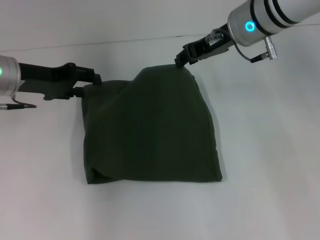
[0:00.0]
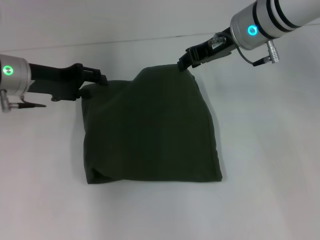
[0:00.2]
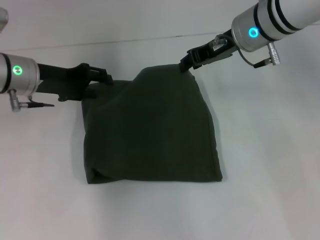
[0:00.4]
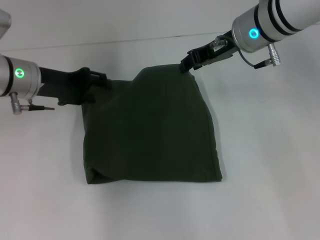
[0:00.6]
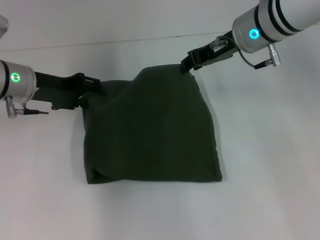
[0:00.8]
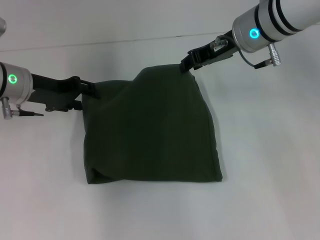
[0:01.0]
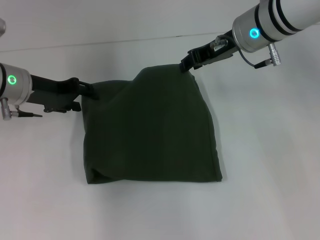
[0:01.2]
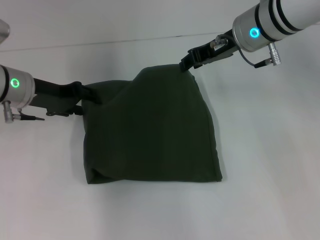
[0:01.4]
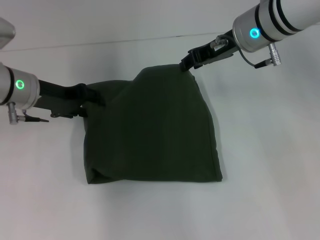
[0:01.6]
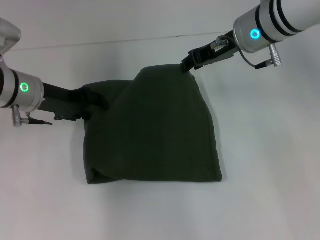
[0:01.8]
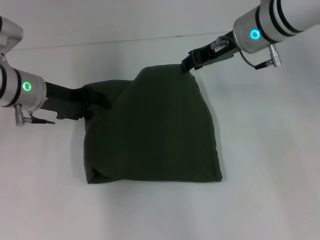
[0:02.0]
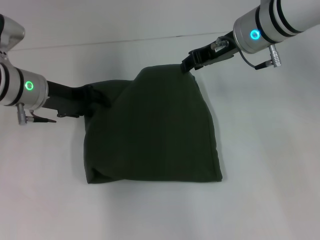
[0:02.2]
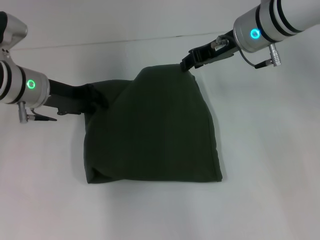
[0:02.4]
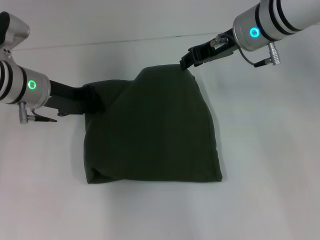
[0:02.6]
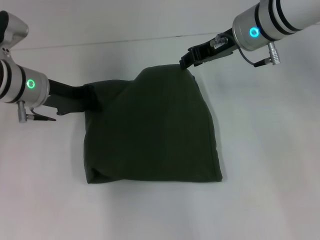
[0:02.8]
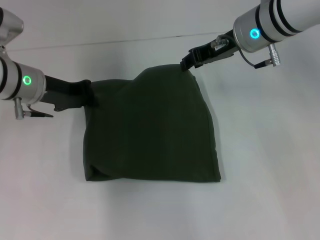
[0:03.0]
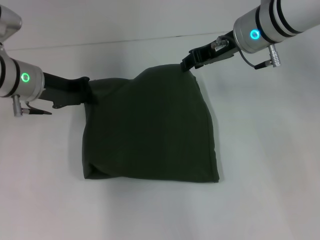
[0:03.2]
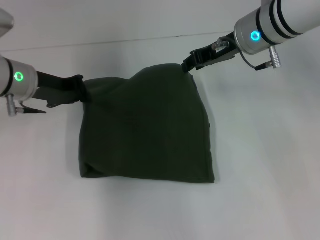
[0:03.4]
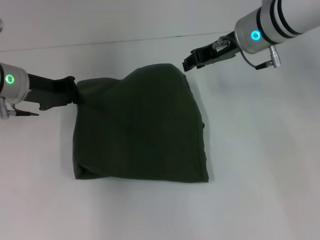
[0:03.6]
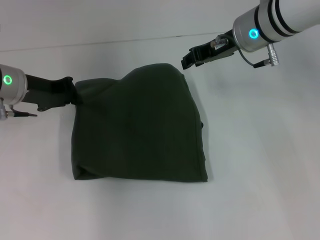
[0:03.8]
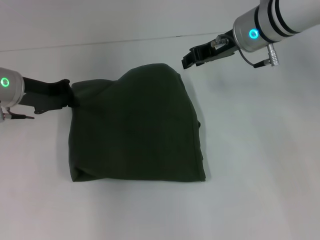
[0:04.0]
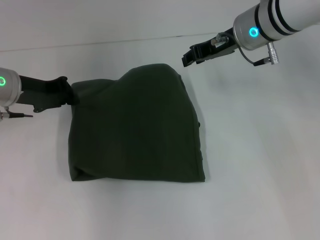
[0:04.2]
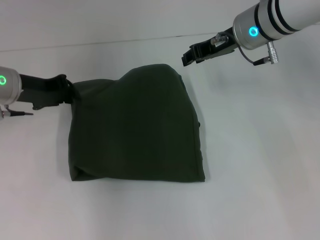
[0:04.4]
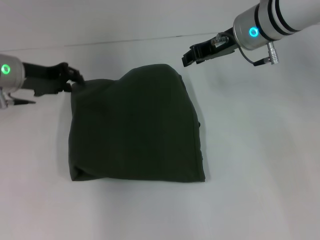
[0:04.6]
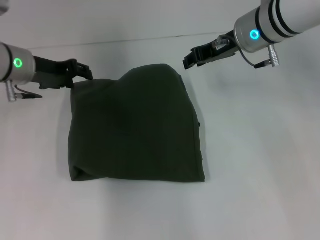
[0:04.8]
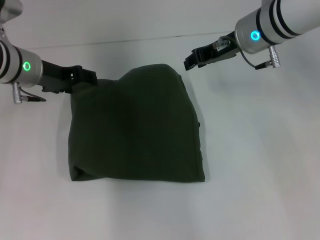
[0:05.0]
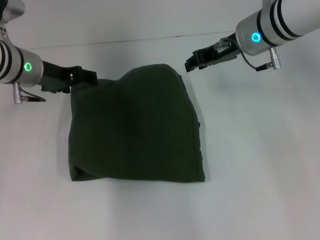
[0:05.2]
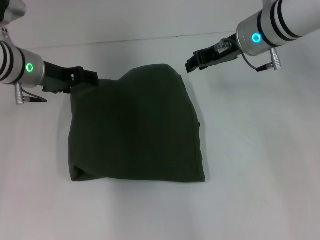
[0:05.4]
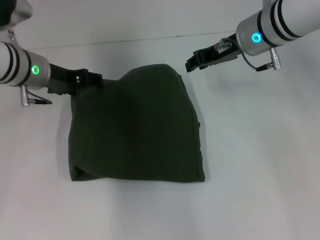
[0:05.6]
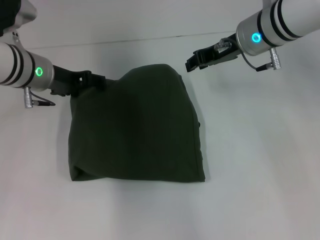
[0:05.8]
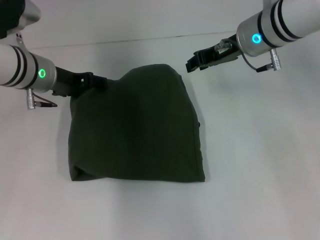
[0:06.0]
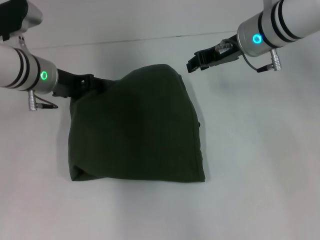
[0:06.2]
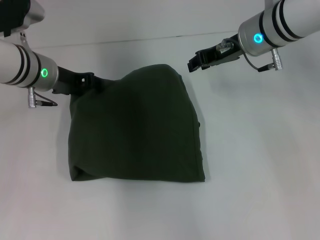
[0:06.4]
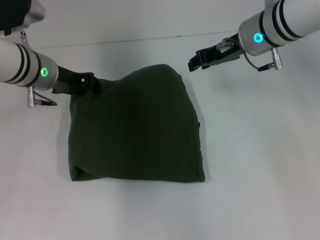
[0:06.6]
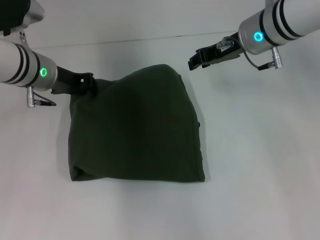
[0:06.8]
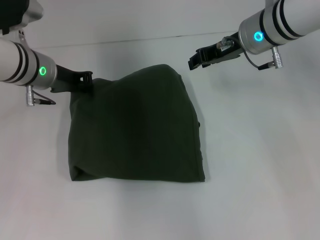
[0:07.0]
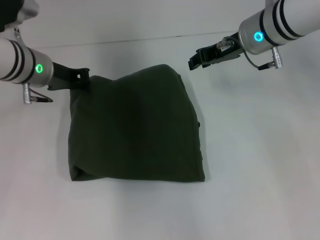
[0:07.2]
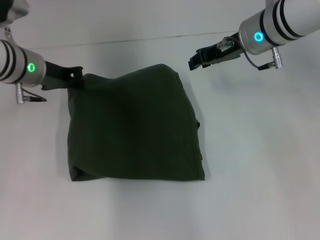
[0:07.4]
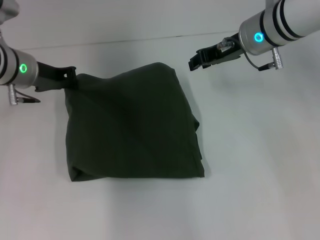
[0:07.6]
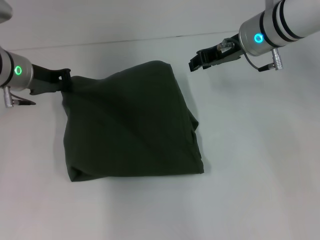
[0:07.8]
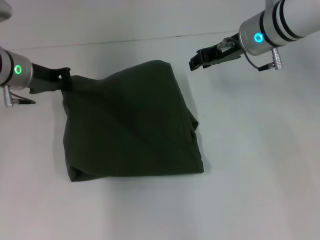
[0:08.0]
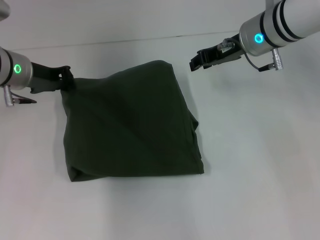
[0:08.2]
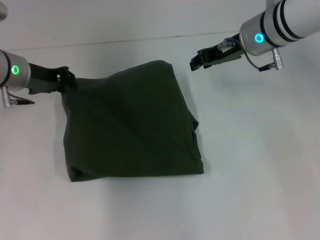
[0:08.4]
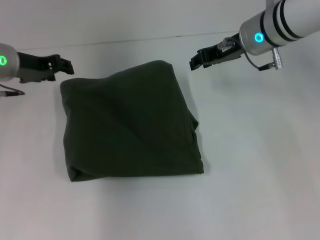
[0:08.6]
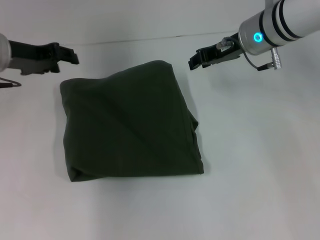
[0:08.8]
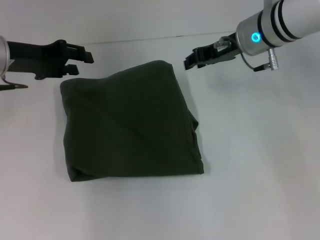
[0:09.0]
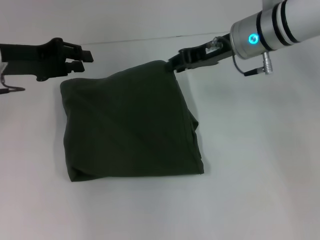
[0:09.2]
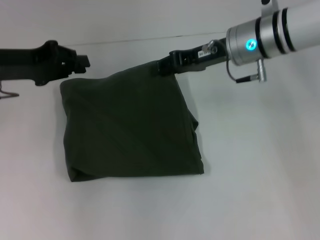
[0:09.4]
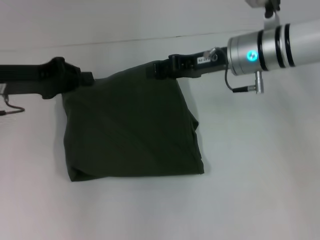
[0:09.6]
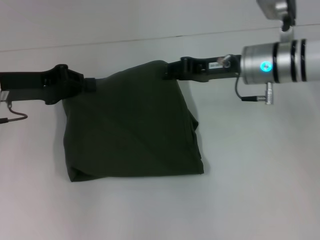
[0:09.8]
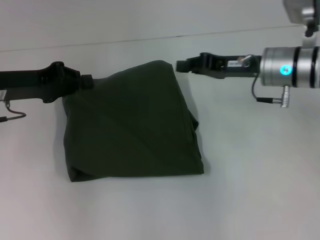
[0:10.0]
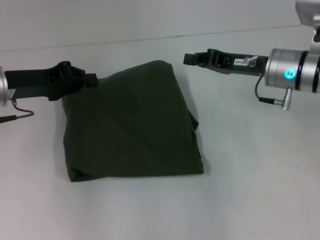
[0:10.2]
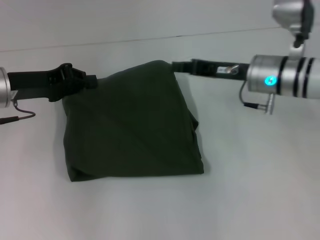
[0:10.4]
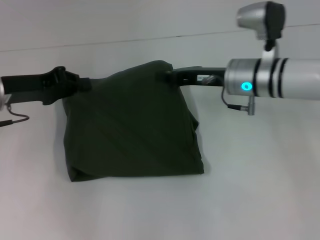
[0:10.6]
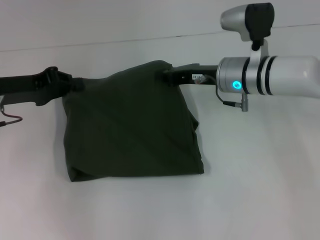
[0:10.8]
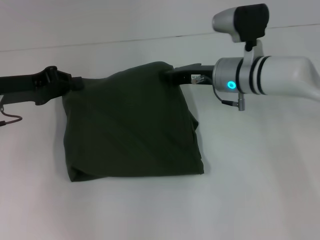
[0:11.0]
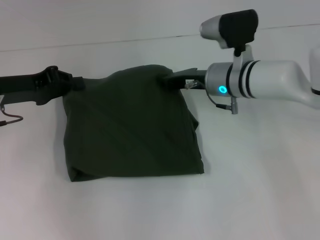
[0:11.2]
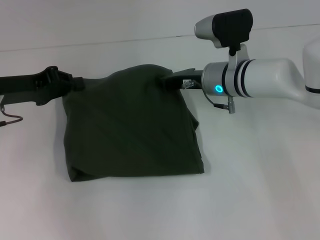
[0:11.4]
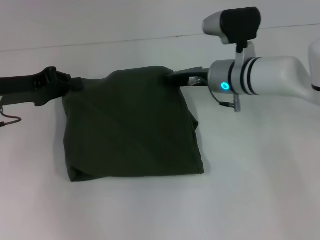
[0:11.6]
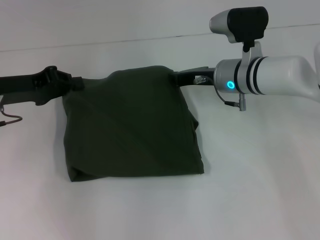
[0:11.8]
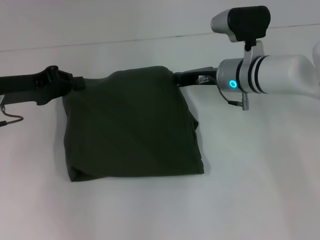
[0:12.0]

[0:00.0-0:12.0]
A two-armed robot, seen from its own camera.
0:00.0 to 0:01.6: The grippers stay close to where they were, moving slightly.
0:01.6 to 0:03.0: The left gripper closes its fingers.
0:03.0 to 0:04.4: The grippers stay close to where they were, moving slightly.
0:04.4 to 0:06.0: The left gripper goes some 5 cm to the right, and opens.
0:06.0 to 0:07.6: The left gripper closes up.
0:07.6 to 0:09.0: The left gripper ends up about 5 cm from where it was, and opens.
0:09.0 to 0:10.4: The right gripper is displaced downward by about 5 cm, and closes, while the left gripper moves roughly 5 cm, and closes up.
0:10.4 to 0:12.0: The right gripper shifts by roughly 5 cm.

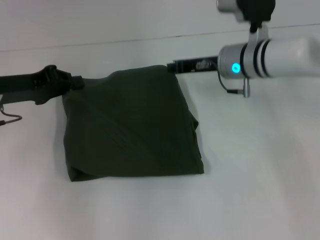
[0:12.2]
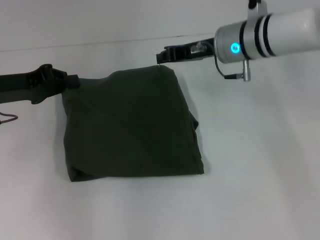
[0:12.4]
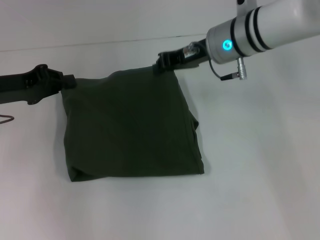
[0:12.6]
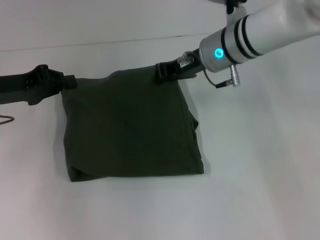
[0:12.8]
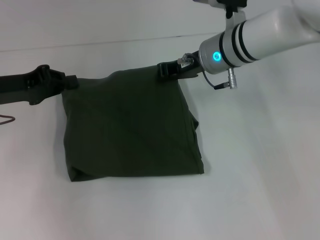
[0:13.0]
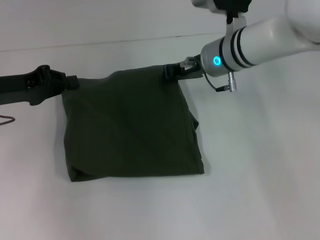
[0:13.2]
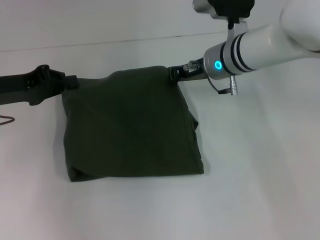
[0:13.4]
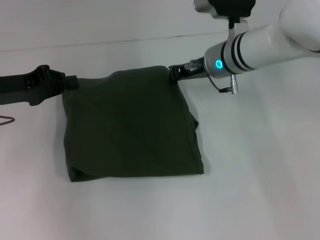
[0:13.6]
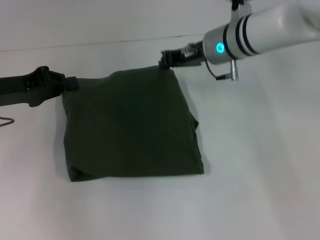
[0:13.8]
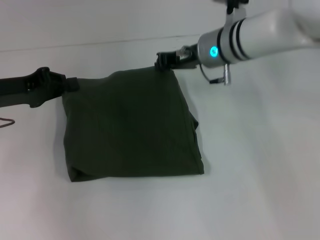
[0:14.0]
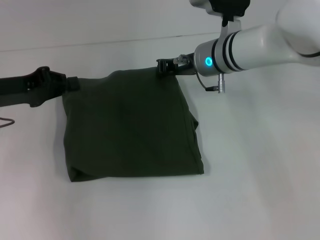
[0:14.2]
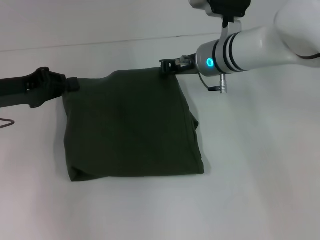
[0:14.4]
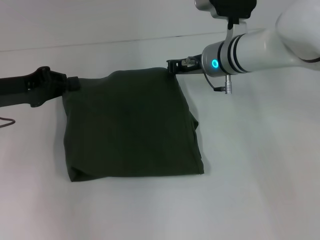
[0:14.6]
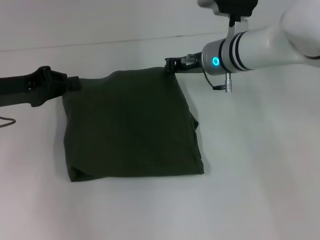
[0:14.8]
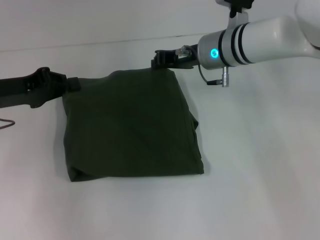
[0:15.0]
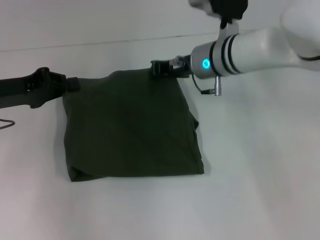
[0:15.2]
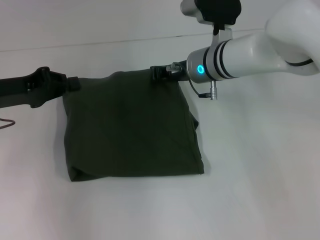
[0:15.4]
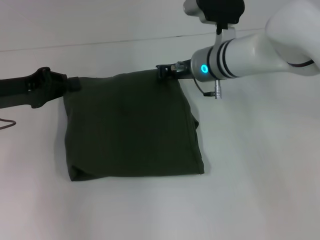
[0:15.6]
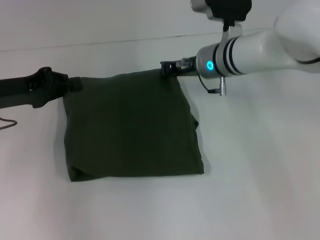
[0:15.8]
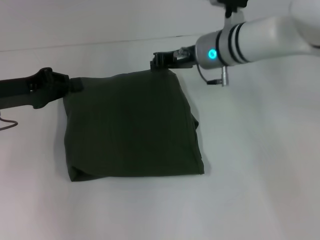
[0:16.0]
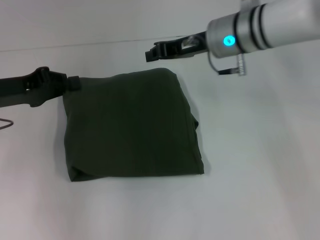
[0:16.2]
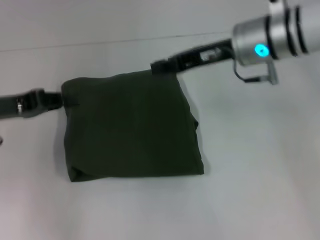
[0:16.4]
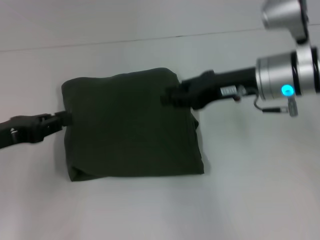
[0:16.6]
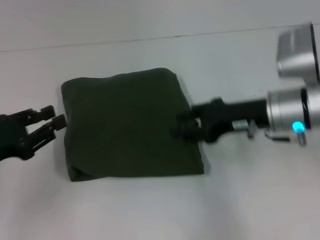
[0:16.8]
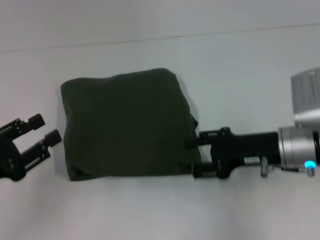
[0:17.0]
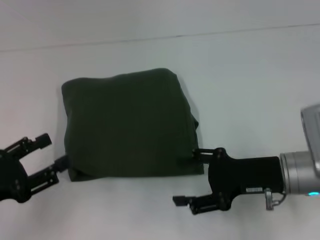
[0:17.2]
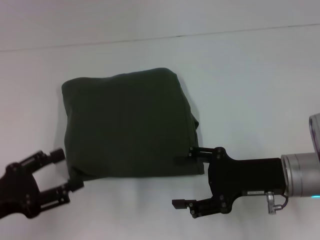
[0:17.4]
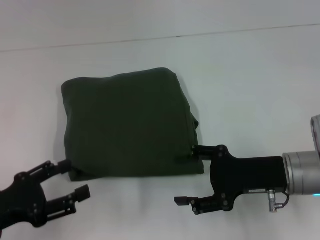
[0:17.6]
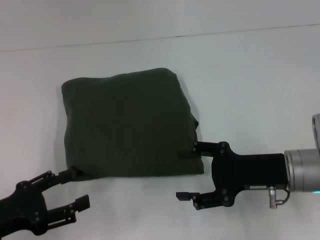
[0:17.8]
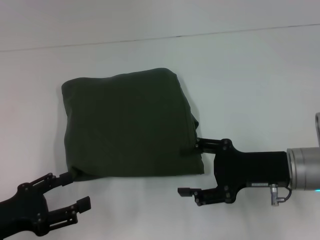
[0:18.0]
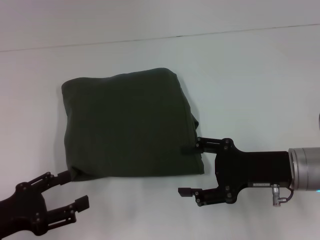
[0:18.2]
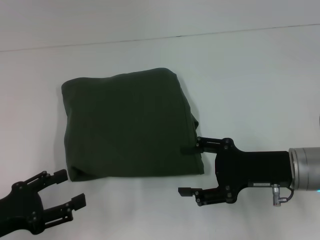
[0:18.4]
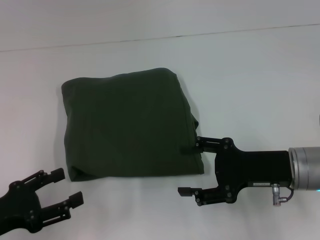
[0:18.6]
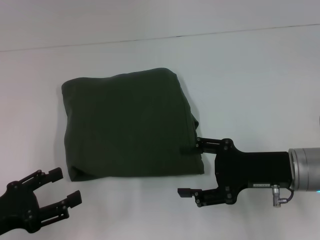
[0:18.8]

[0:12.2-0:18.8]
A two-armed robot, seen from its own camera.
0:12.2 to 0:15.4: The grippers move only a little.
0:15.4 to 0:17.2: The left gripper travels backward by some 15 cm, and opens, while the right gripper is displaced backward and to the right by approximately 20 cm, and opens up.
0:17.2 to 0:18.8: The grippers make only small movements.

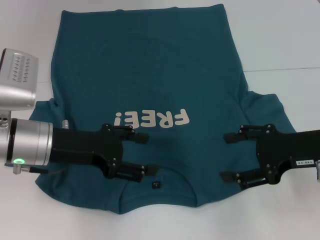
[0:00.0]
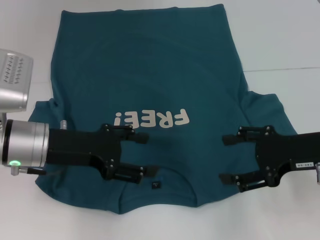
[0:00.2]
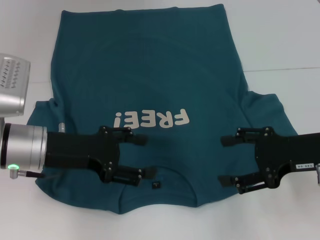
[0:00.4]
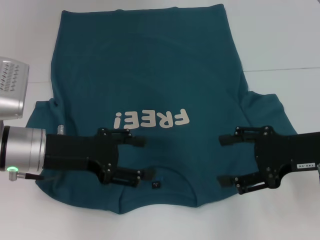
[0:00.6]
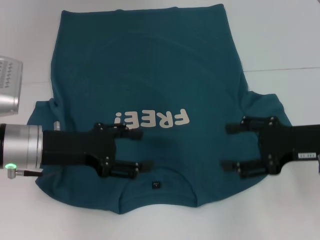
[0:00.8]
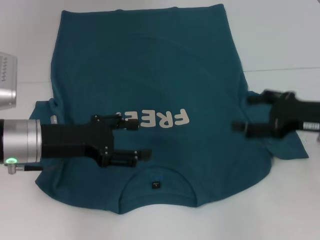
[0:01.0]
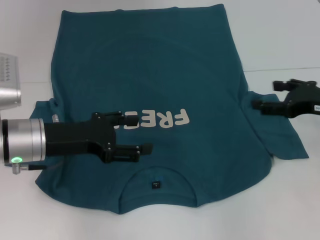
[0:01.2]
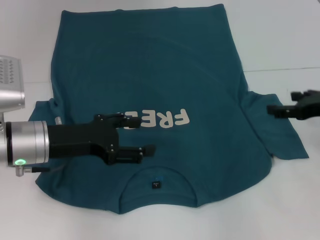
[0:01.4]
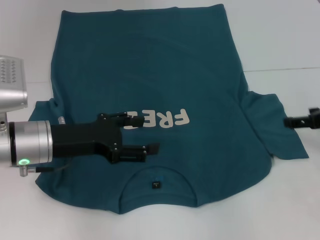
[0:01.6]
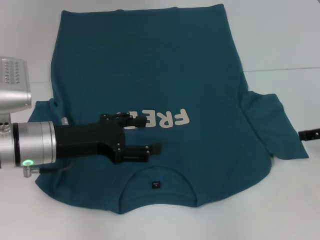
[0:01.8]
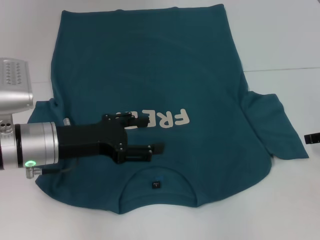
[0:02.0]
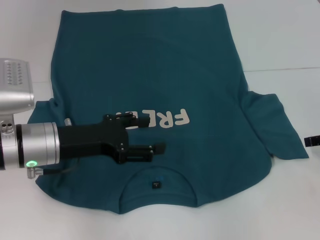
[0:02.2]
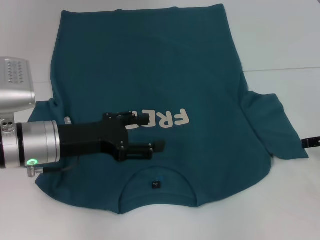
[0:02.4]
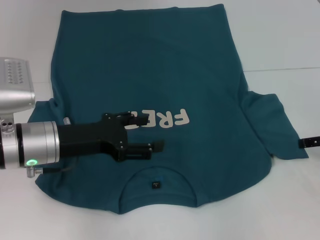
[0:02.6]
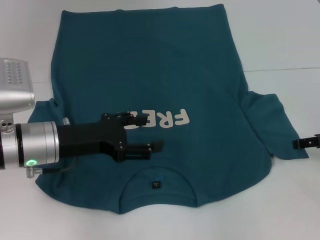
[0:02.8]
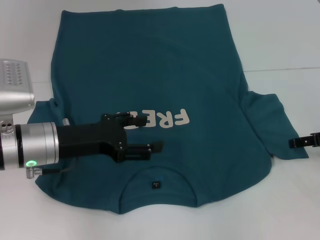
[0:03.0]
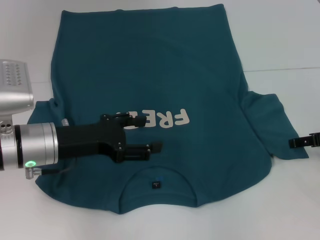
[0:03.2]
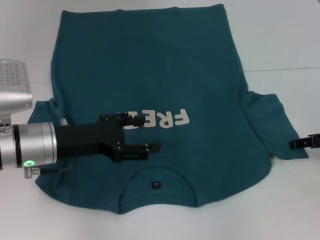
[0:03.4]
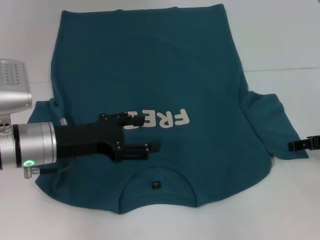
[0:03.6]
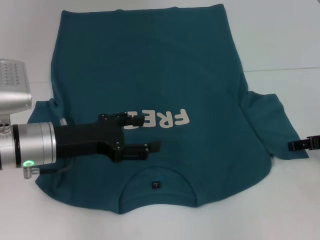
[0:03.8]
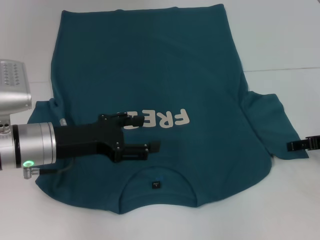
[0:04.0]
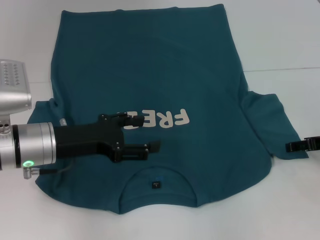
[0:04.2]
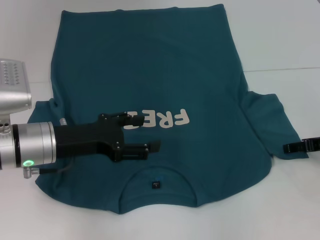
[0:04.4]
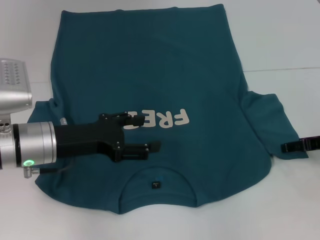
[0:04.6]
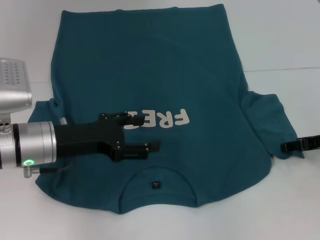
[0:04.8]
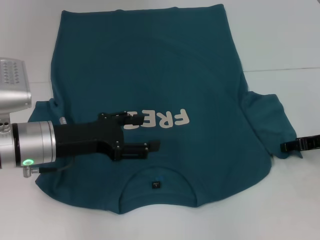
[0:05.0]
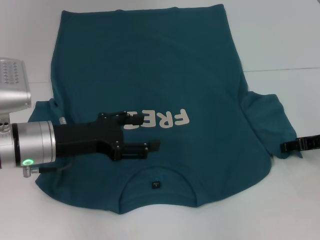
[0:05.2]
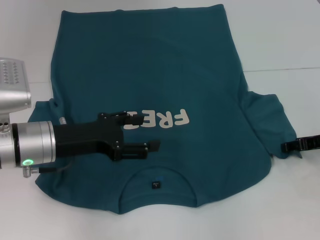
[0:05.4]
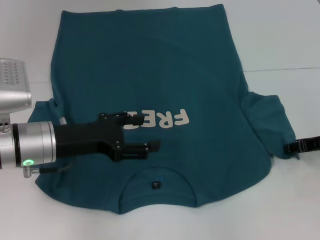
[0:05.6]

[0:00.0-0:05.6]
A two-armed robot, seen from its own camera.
0:00.0 to 0:01.4: The right gripper travels to the right by roughly 5 cm.
0:02.8 to 0:05.6: The grippers stay close to where they were, moving slightly.
